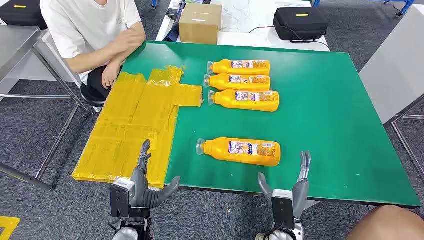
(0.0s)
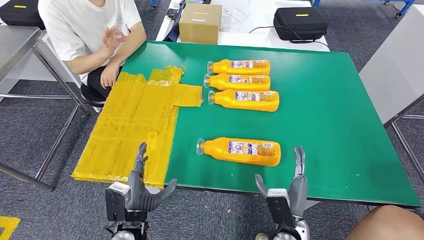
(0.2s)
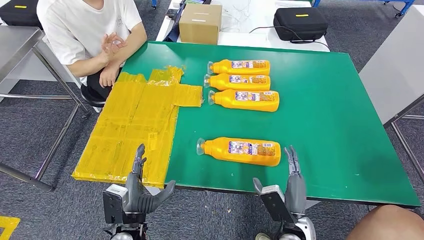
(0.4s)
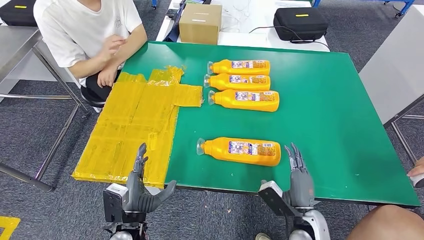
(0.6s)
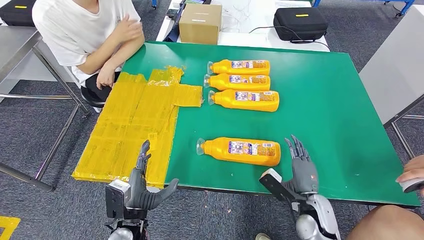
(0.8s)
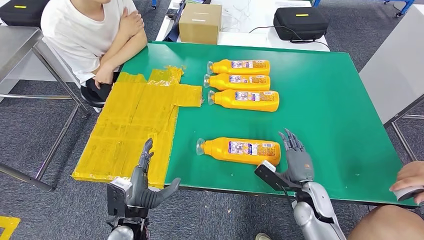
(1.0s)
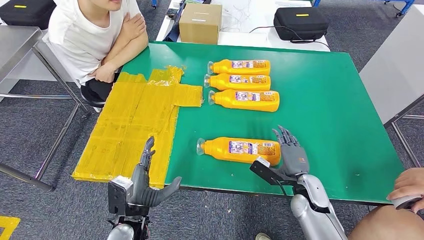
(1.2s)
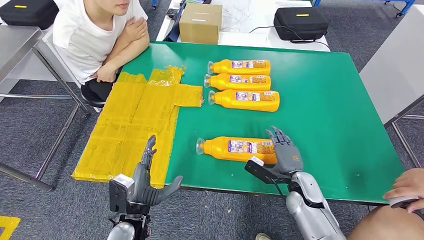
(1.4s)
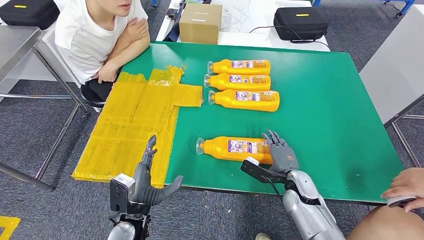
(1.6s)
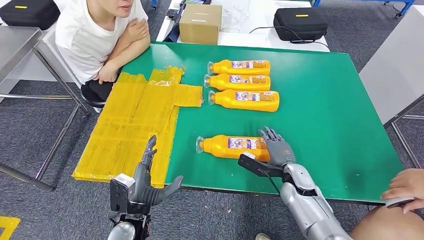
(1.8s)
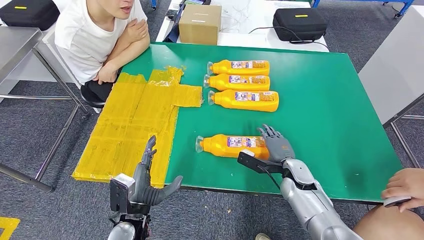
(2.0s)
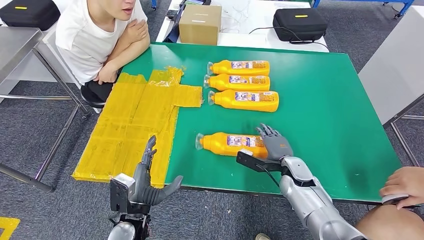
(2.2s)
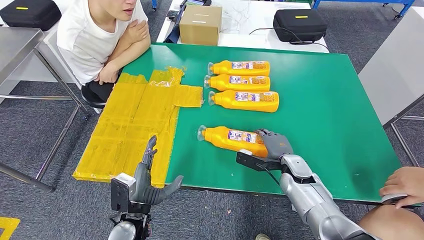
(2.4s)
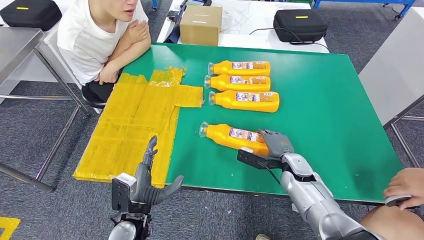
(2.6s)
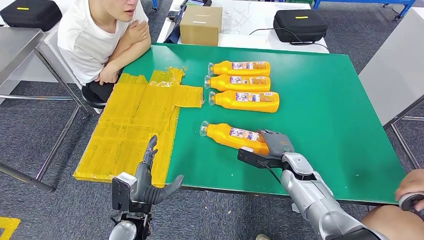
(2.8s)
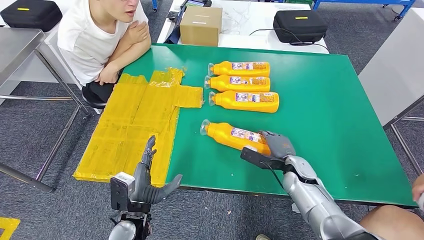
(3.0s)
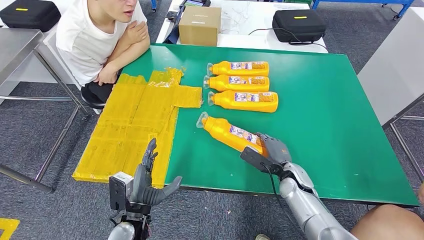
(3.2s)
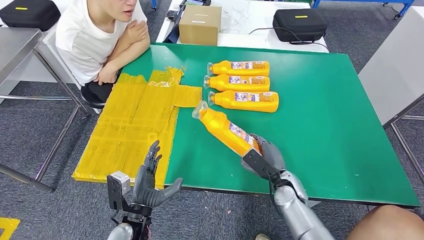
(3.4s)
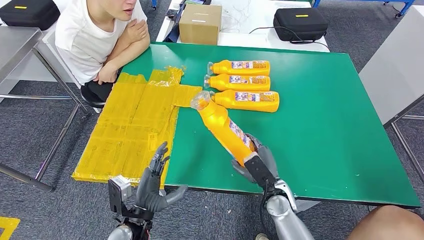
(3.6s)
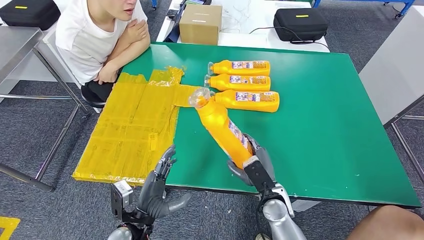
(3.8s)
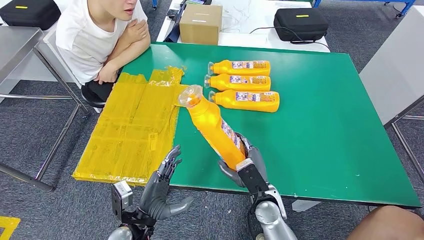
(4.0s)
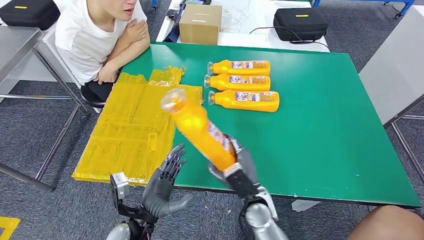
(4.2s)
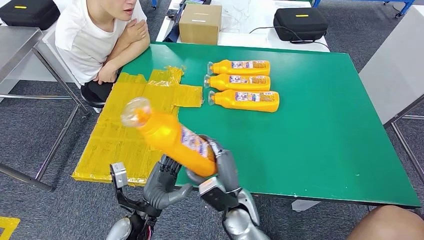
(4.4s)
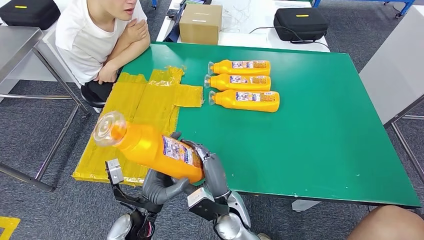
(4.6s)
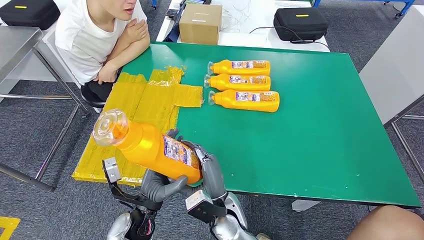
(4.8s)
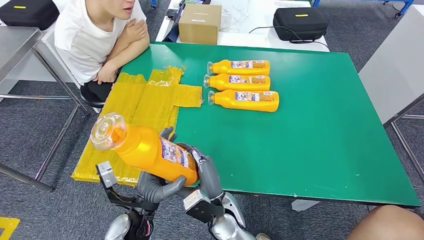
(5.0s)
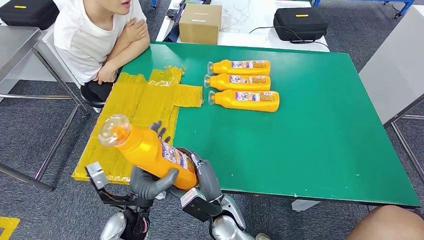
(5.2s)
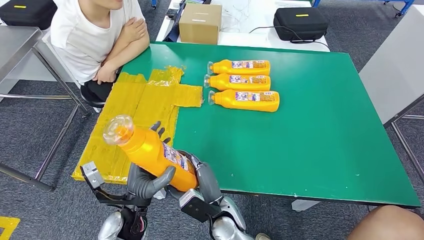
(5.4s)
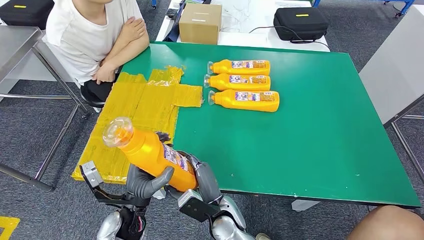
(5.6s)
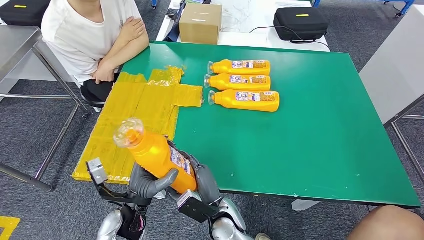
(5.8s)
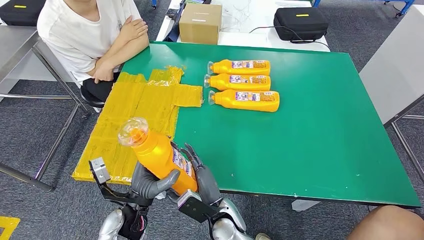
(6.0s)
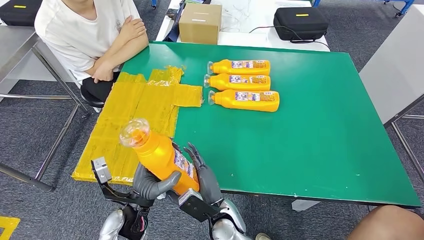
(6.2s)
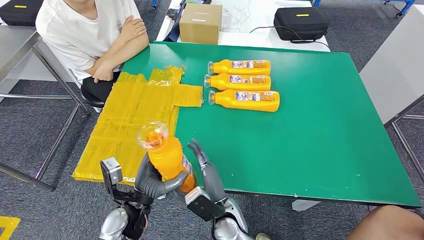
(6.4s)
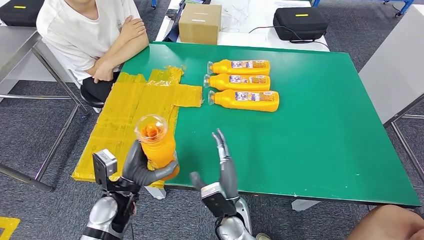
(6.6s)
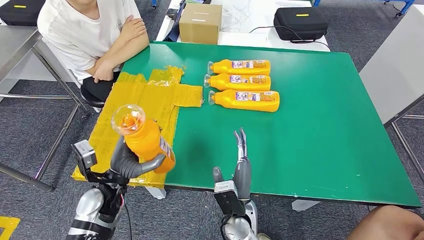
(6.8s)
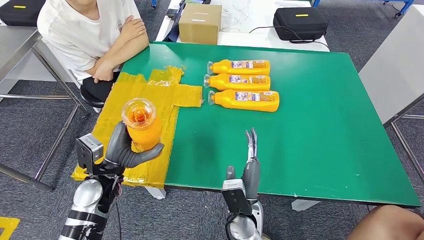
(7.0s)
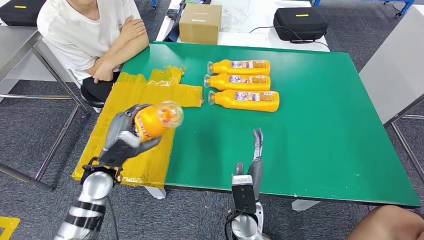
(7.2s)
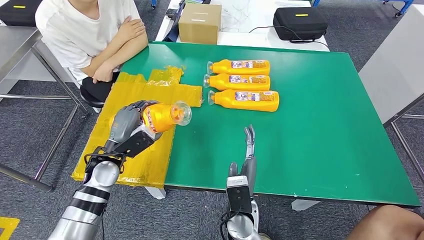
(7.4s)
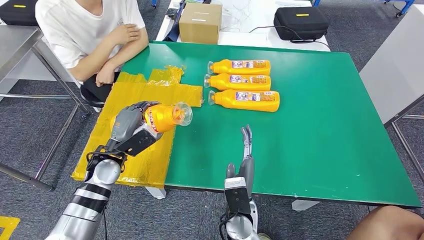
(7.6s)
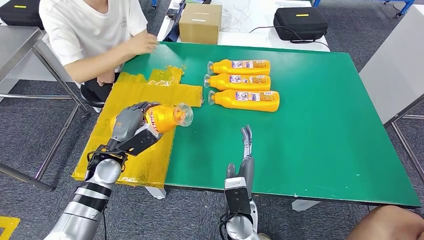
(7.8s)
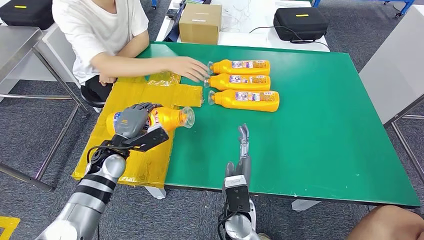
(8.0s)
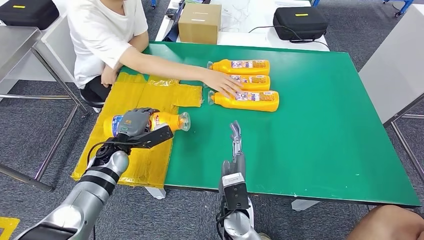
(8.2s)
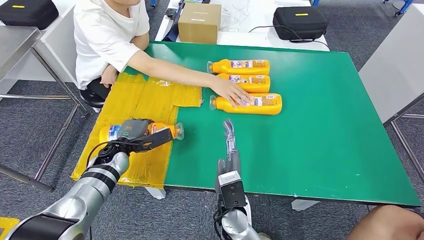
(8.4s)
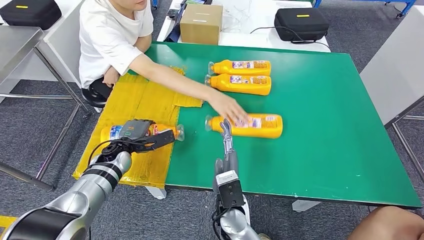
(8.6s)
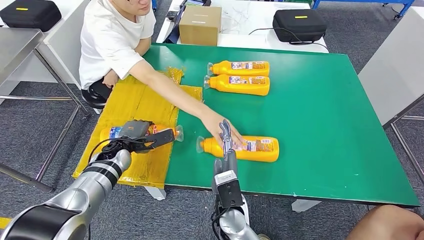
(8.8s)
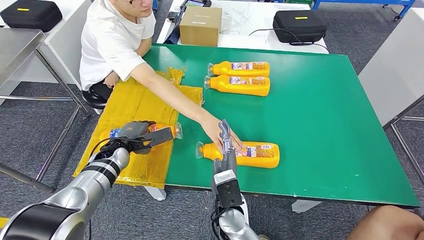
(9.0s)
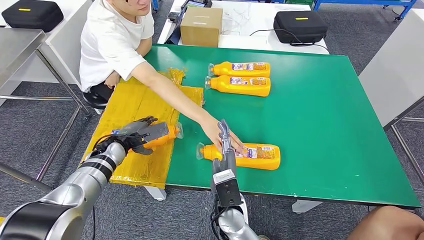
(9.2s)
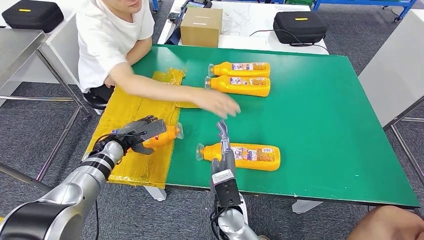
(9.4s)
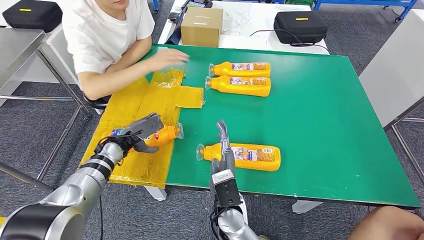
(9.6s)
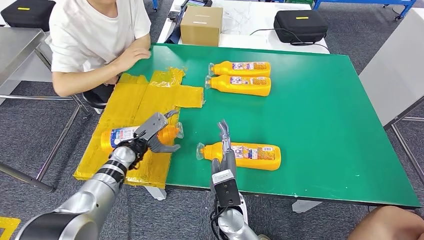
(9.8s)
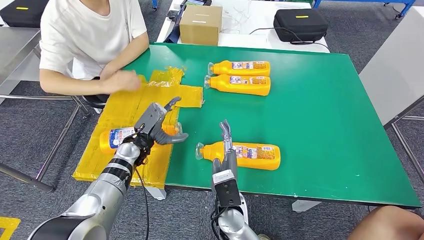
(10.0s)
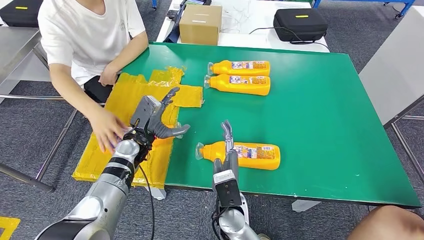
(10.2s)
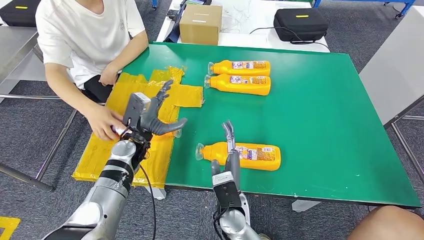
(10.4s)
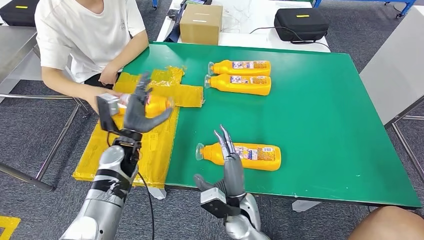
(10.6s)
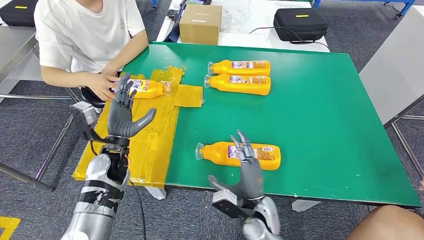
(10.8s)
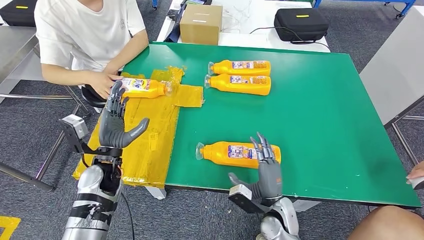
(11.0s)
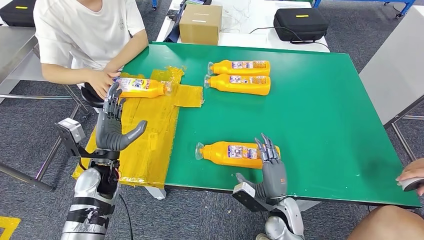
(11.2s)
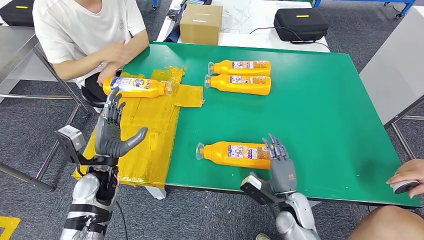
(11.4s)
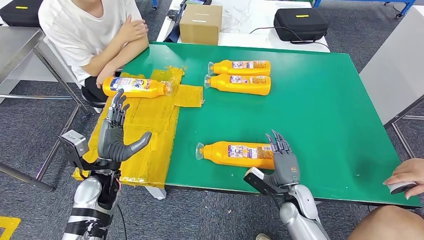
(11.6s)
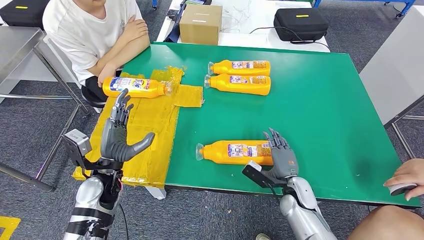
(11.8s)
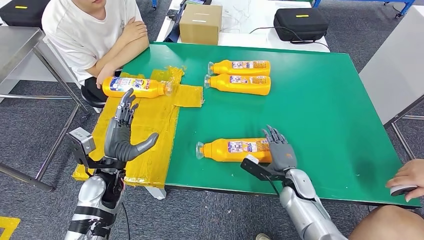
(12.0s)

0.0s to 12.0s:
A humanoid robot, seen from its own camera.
Step, 0.0s to 4.4s: Take the bottle from the table.
Step, 4.6s to 10.6s: Flip the bottle to face forward.
1.6s to 3.0s: The hands make only small movements.
4.4s to 6.0s: The right hand ends up about 5 cm from where it was.
6.0s to 7.6s: The left hand travels forward and to the left by roughly 15 cm.

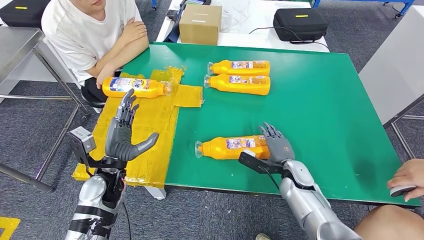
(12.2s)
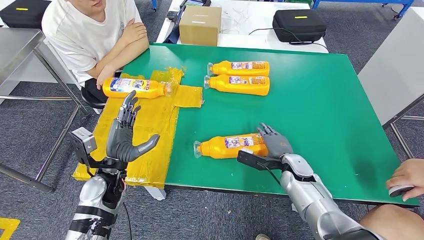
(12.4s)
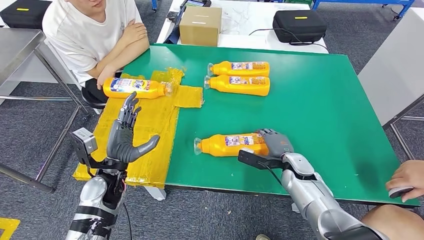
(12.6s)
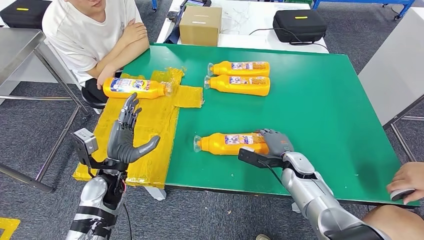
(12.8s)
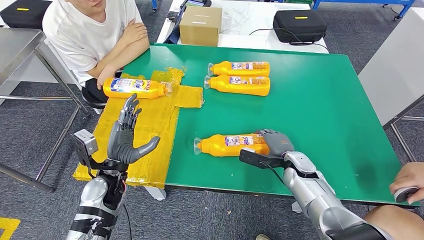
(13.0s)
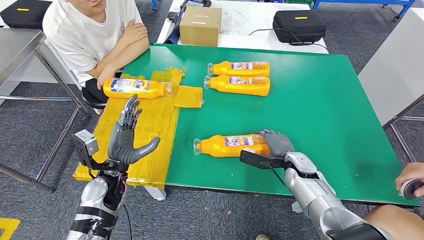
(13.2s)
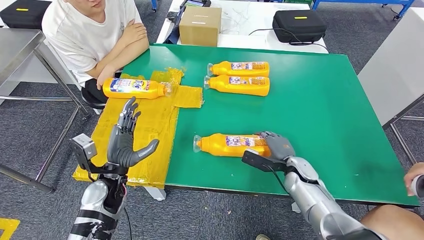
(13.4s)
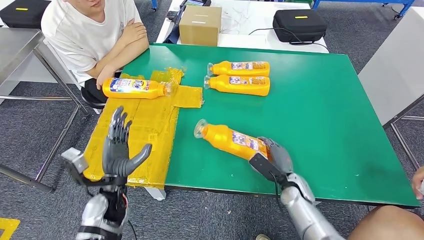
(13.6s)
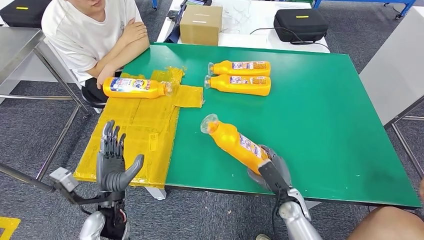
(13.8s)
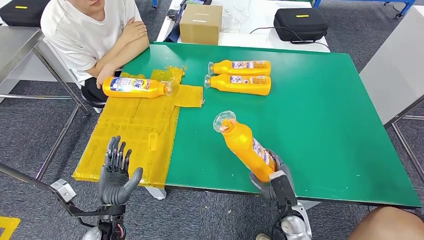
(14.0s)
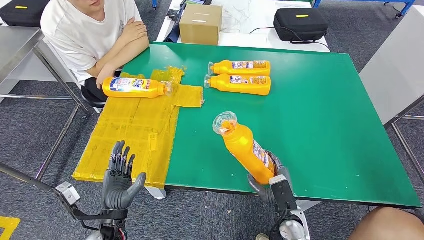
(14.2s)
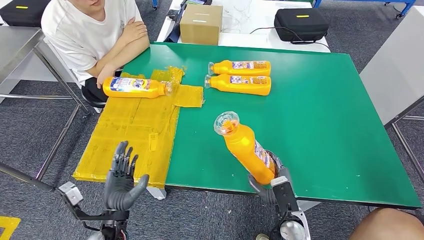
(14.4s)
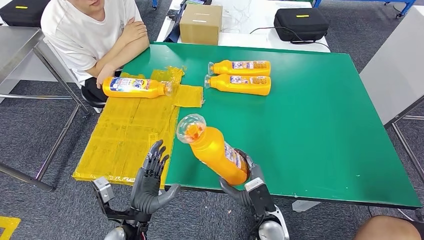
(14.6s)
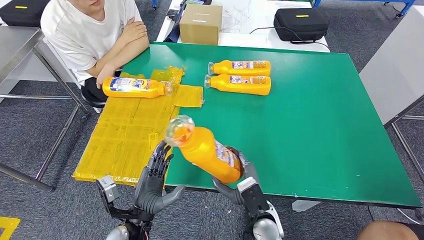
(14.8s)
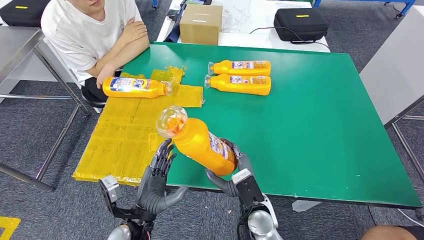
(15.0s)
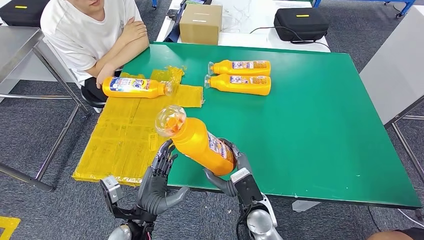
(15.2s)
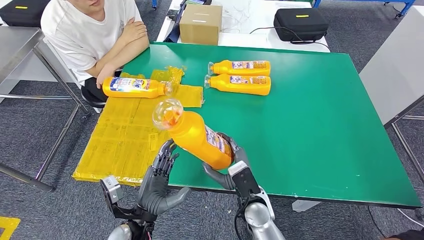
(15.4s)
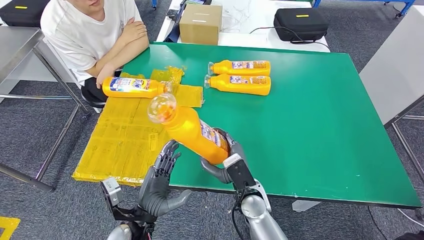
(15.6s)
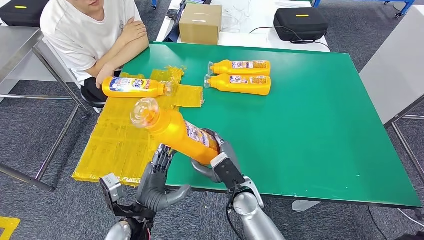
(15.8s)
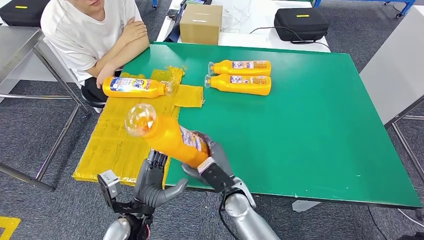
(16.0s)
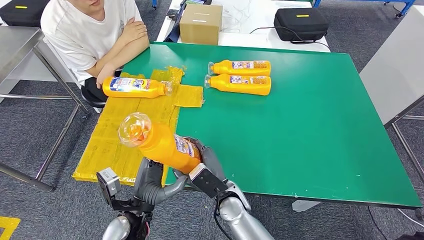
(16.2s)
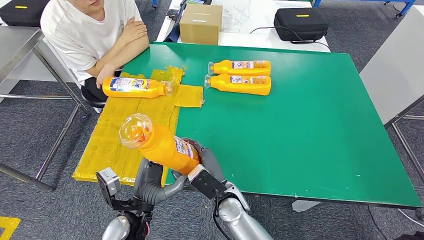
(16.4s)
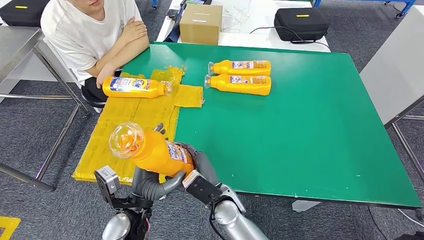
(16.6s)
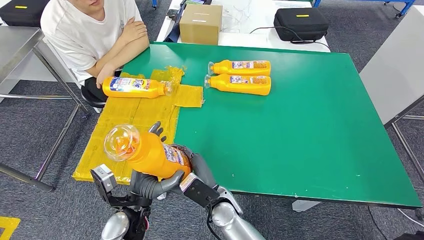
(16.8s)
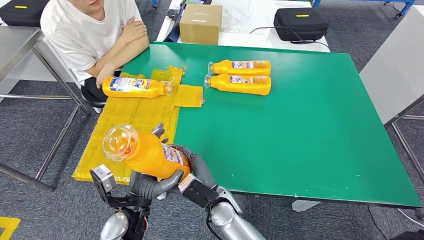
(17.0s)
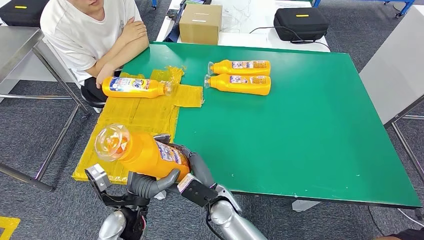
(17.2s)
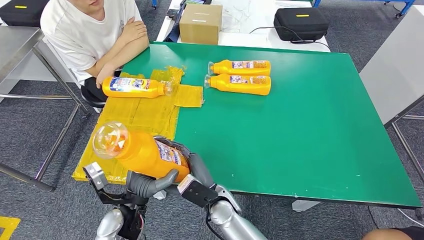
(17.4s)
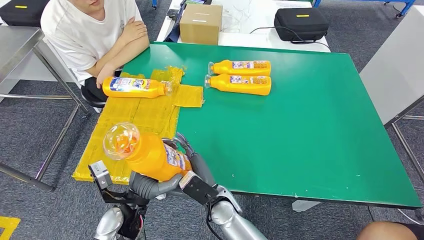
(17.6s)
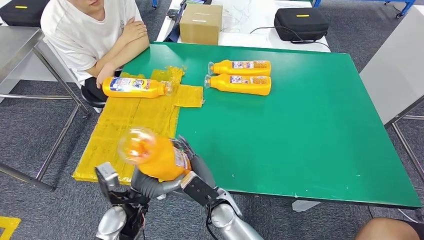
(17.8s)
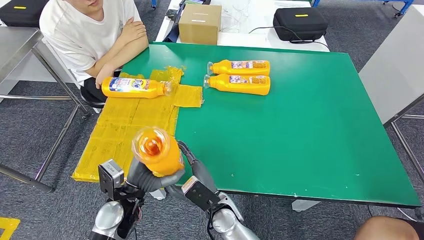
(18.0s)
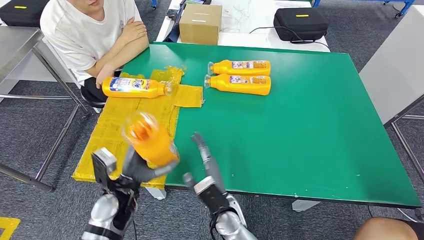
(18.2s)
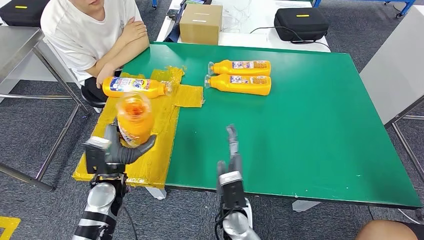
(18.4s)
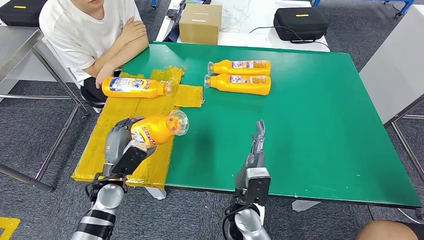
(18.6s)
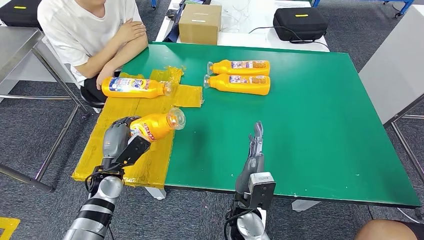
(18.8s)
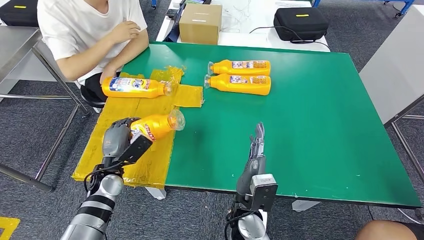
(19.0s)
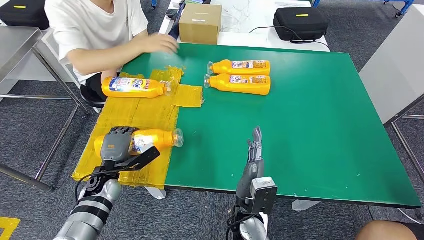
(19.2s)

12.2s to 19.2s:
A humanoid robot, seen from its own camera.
Step, 12.2s to 14.6s: Pick up the bottle from the table.
12.2s to 13.6s: The left hand moves some 5 cm.
15.0s to 16.4s: The right hand shifts approximately 5 cm to the left.
16.4s to 17.8s: There are only small adjustments of the hands.
